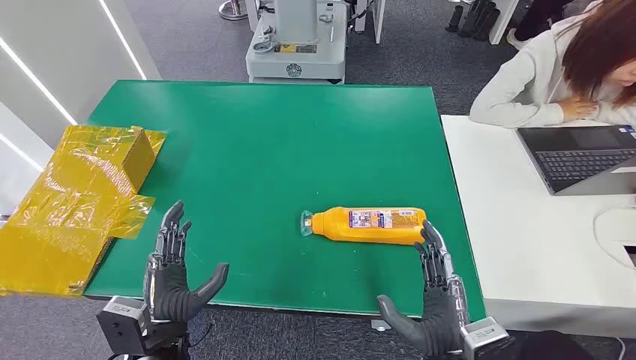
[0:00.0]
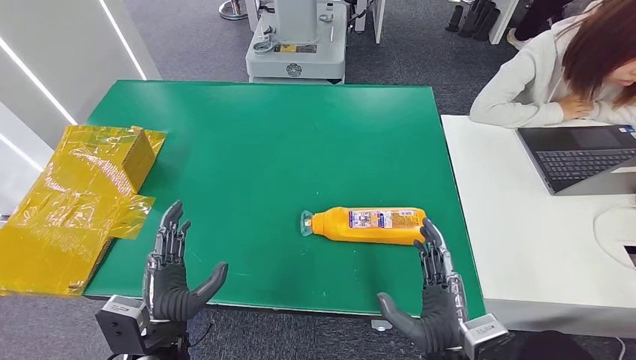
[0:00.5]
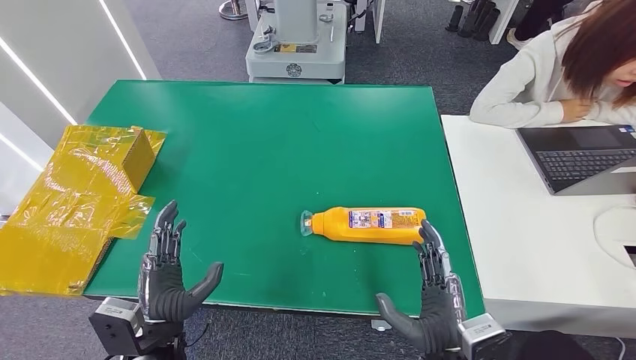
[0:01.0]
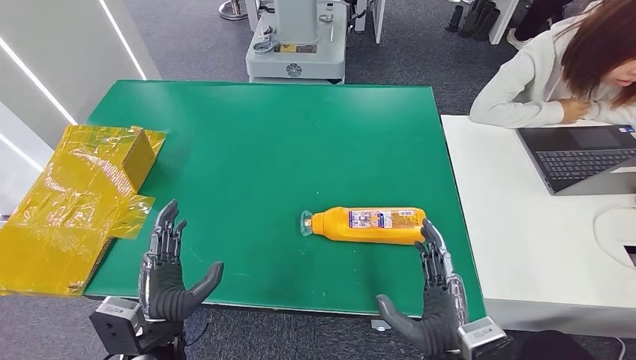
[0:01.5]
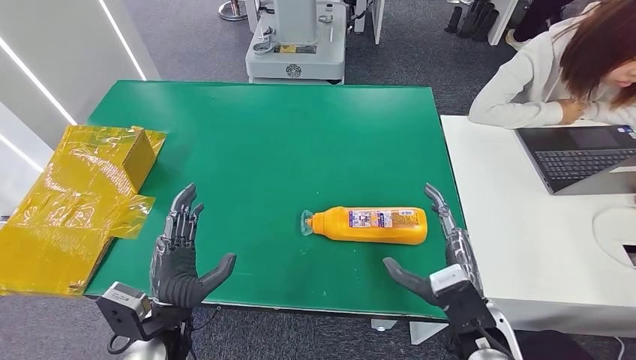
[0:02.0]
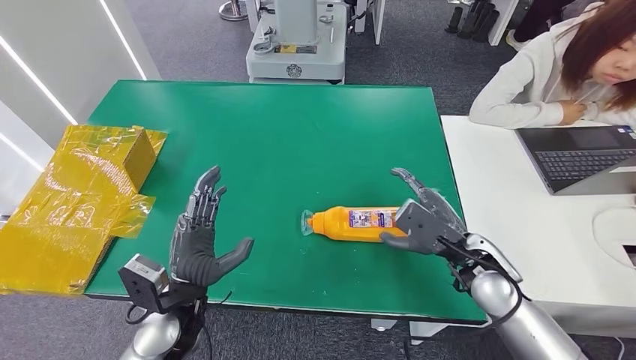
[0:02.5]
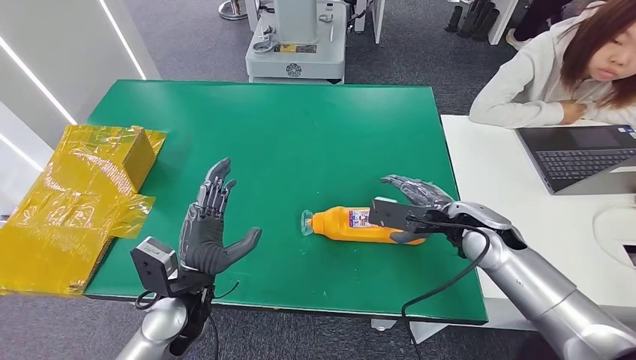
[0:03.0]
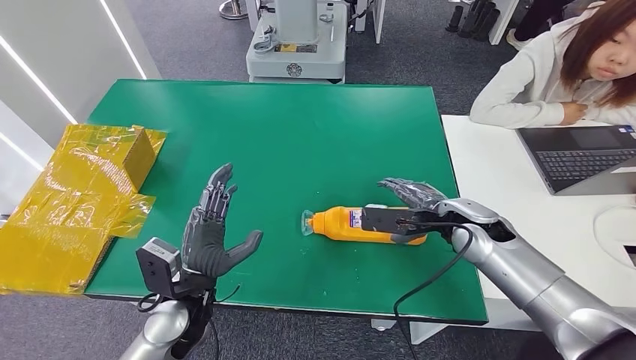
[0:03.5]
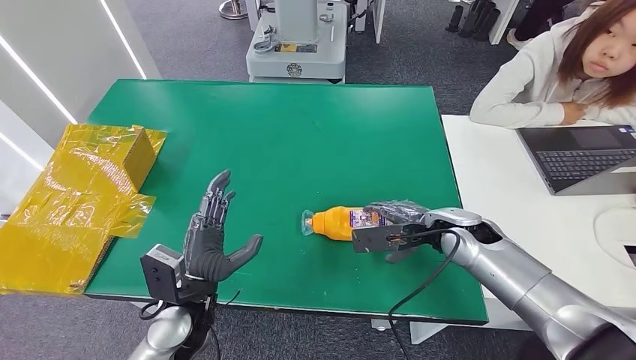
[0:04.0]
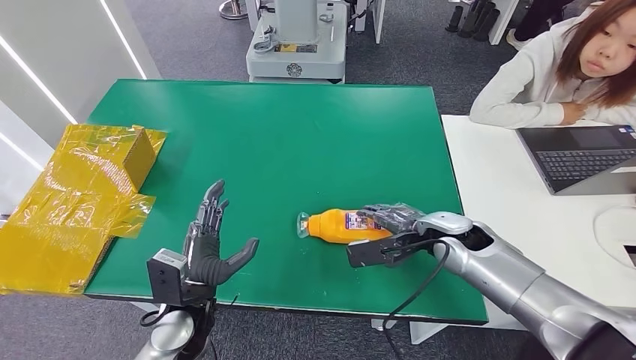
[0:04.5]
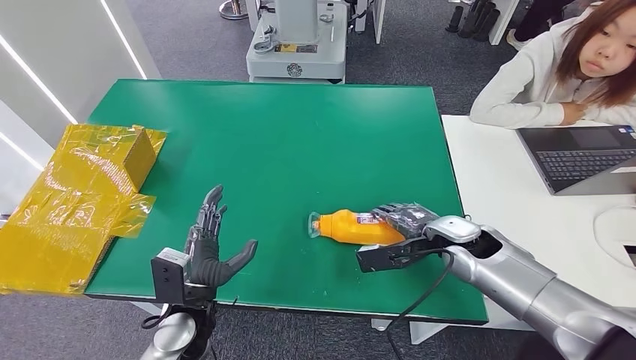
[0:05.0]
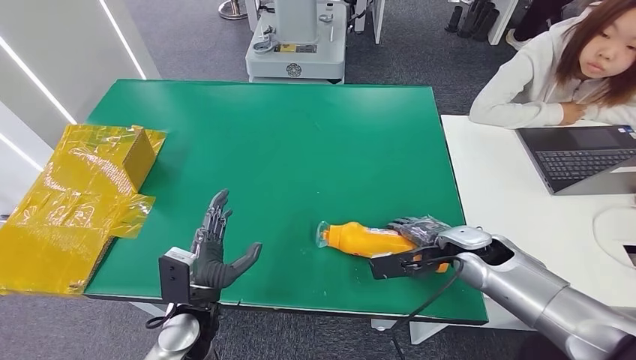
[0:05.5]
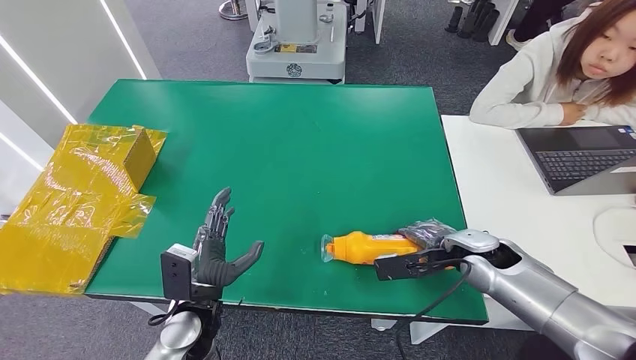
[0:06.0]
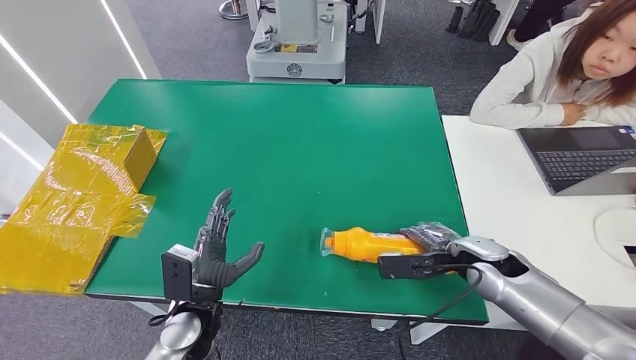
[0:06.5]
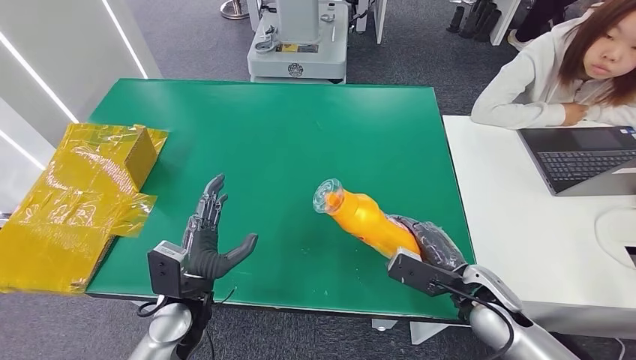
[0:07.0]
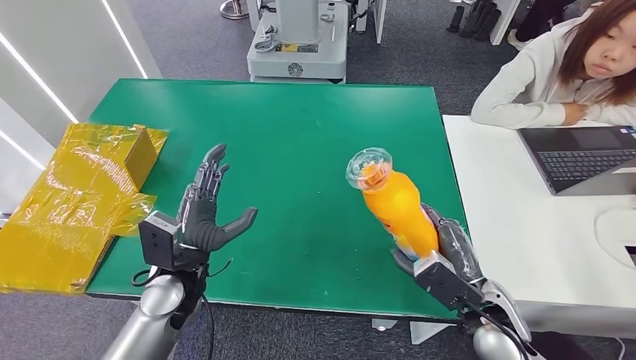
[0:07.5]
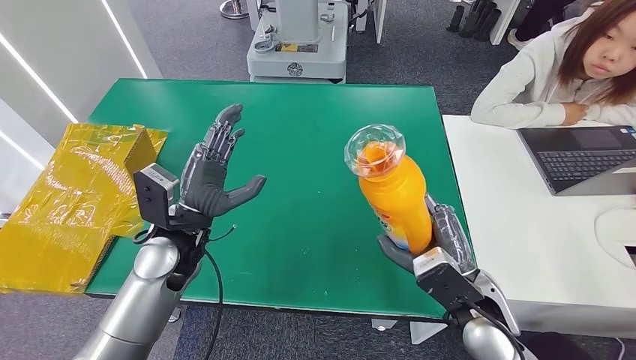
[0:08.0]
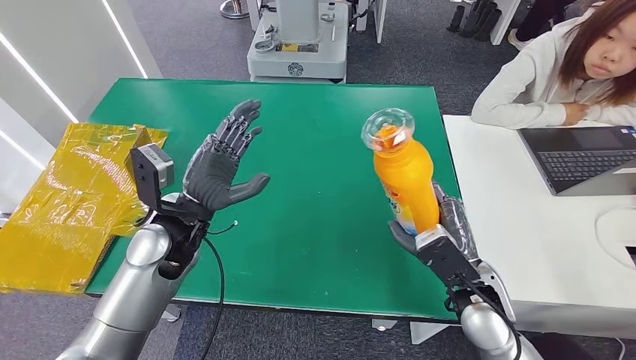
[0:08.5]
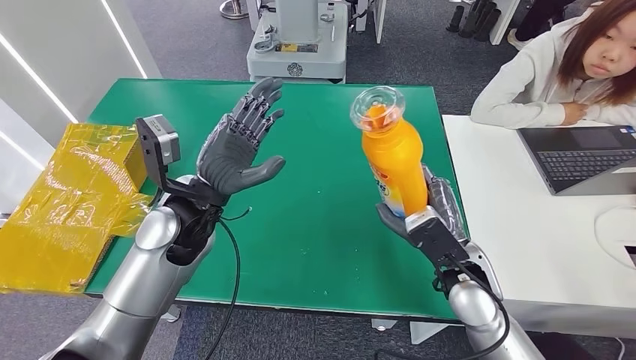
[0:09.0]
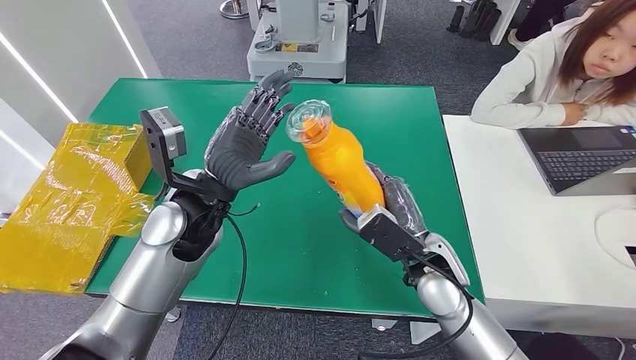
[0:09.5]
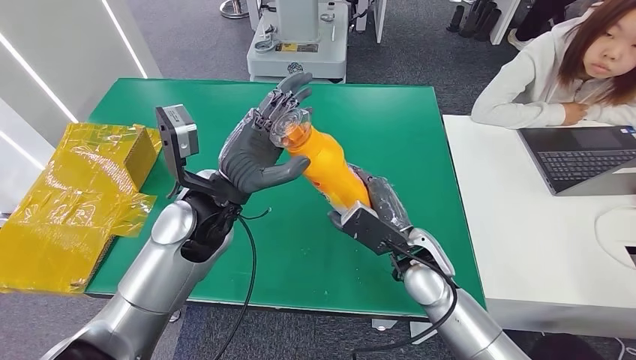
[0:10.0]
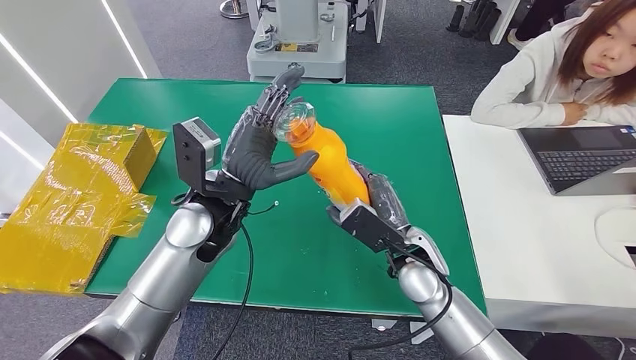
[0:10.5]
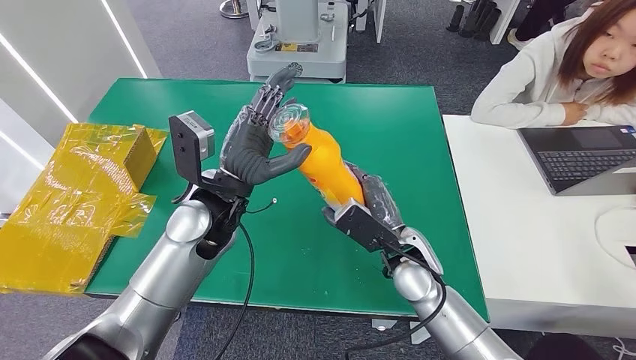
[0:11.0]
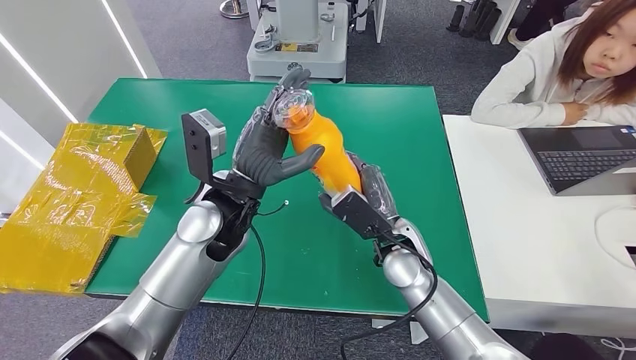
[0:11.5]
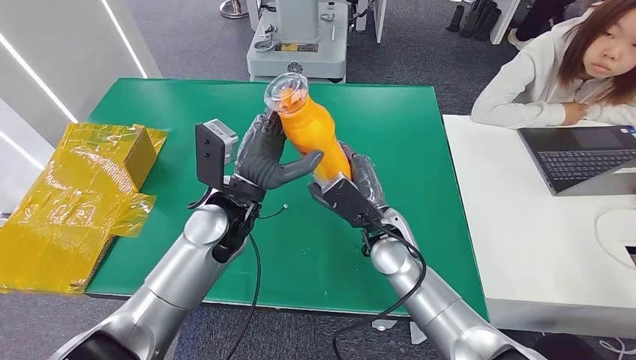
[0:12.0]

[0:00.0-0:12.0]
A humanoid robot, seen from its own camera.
Step, 0:00.0 to 0:06.5: Pick up the bottle from the table.
0:02.0 to 0:04.0: The right hand goes roughly 15 cm forward.
0:04.0 to 0:06.0: The right hand ends up approximately 5 cm from where it was.
0:08.0 to 0:10.0: The left hand is displaced upward and to the right by roughly 10 cm; the right hand moves forward and to the left, some 10 cm.
0:10.0 to 0:12.0: The right hand changes place by approximately 5 cm.

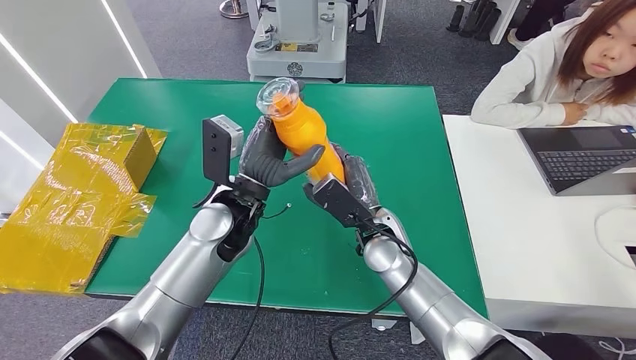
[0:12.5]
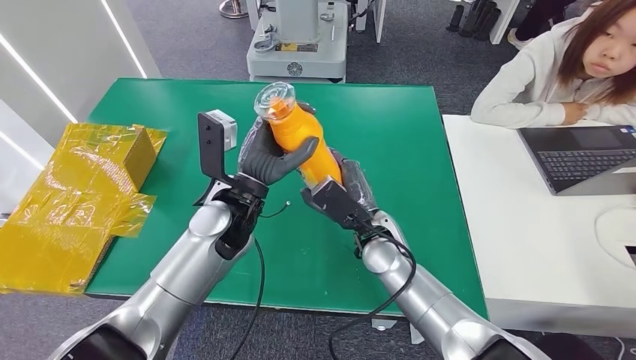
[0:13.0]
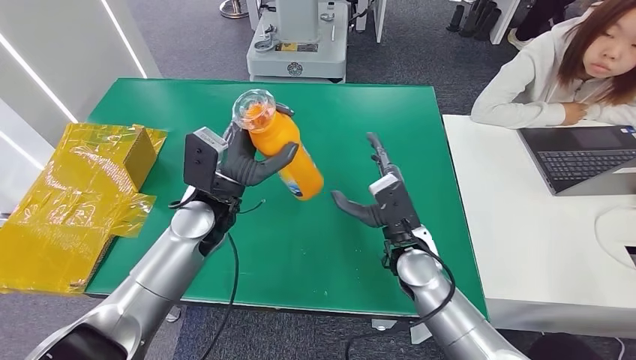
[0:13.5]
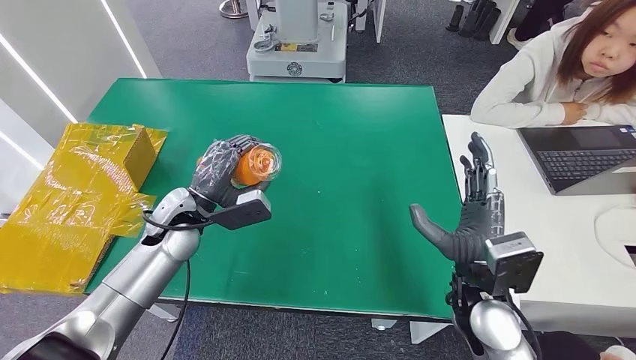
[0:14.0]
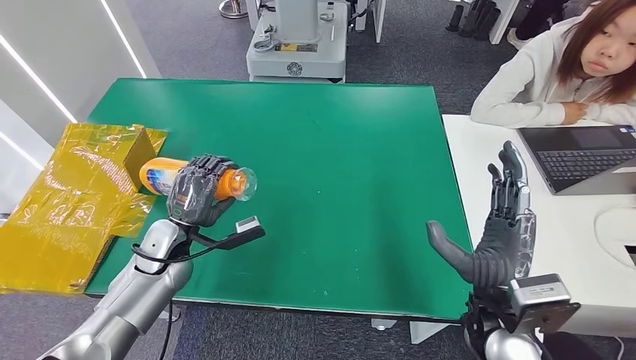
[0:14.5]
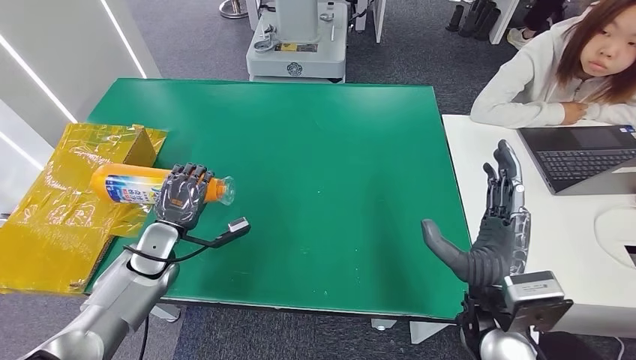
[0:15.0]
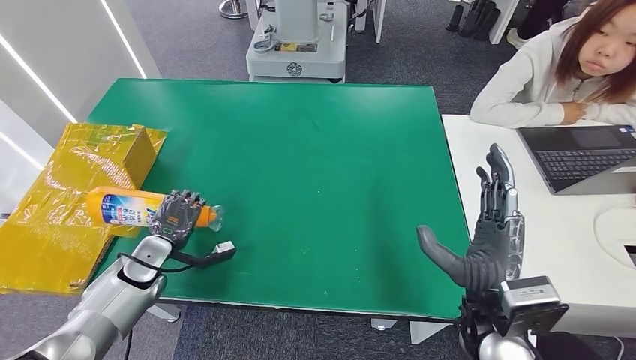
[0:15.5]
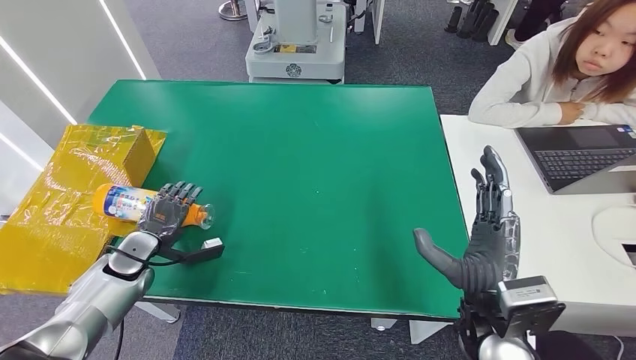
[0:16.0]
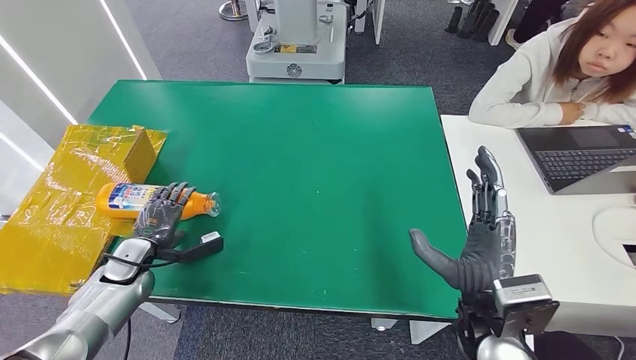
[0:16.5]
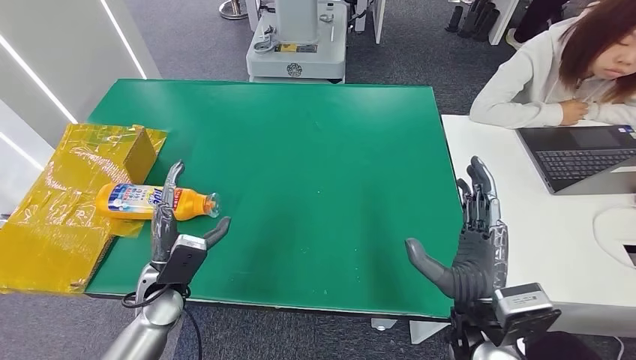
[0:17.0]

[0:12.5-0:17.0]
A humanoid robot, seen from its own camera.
Step, 0:12.5 to 0:17.0: Turn the bottle to the front side.
0:14.5 to 0:17.0: The left hand is displaced backward by approximately 5 cm, and reaches about 10 cm to the left, then returns.
